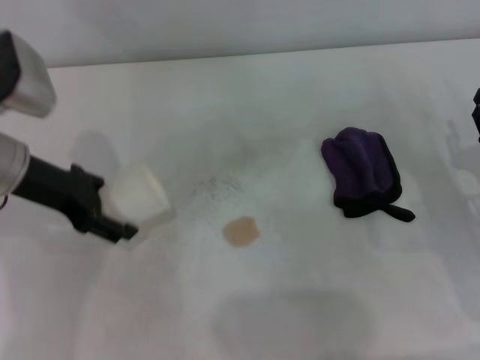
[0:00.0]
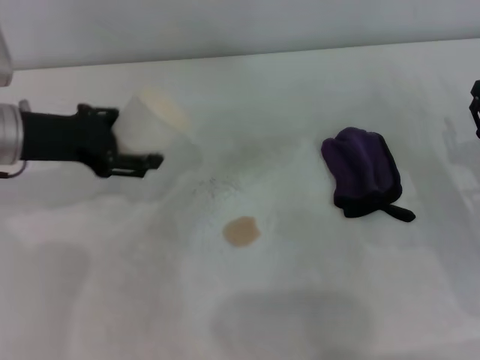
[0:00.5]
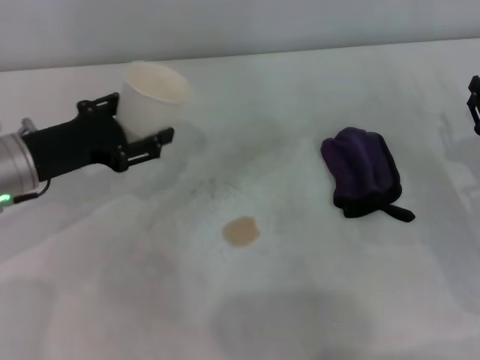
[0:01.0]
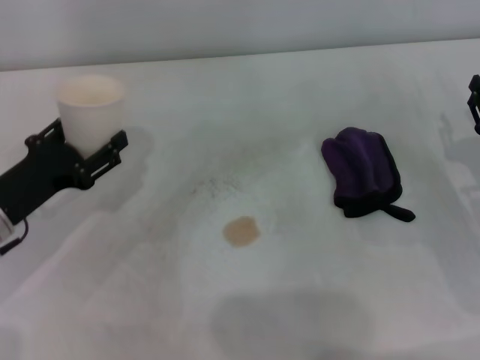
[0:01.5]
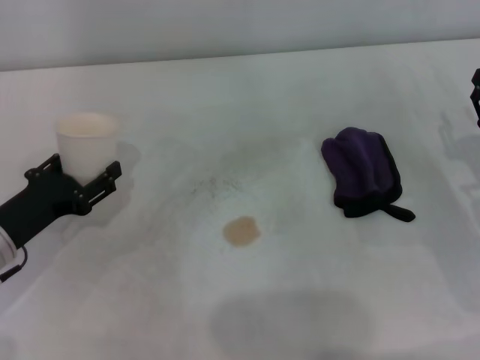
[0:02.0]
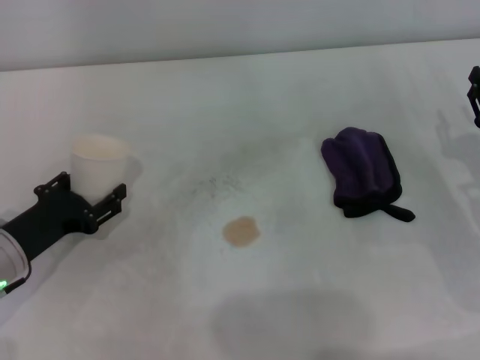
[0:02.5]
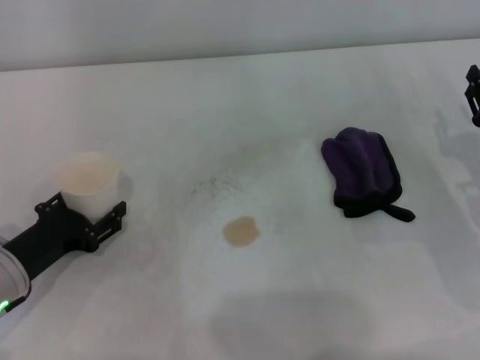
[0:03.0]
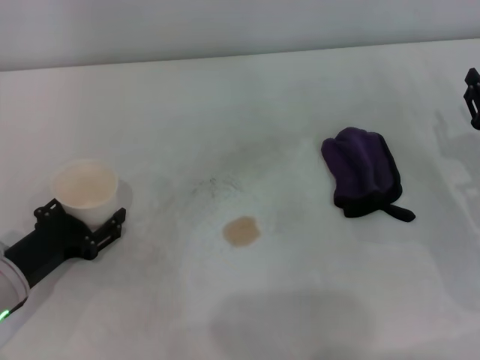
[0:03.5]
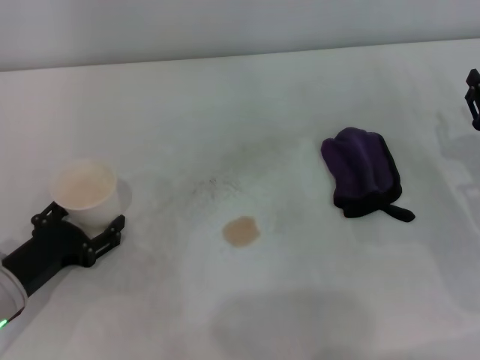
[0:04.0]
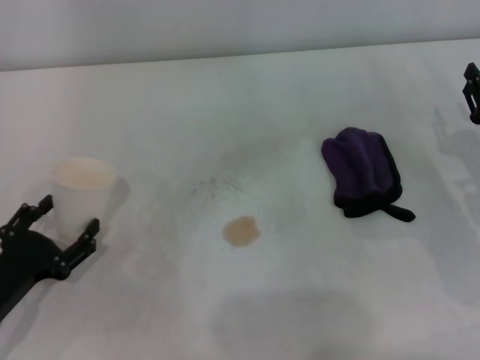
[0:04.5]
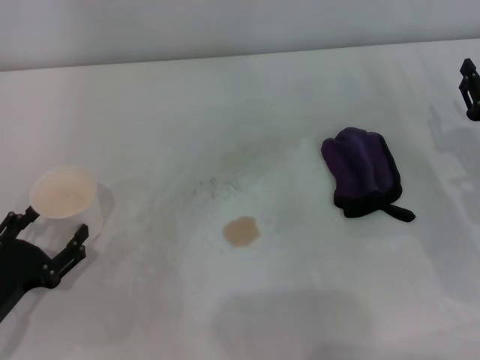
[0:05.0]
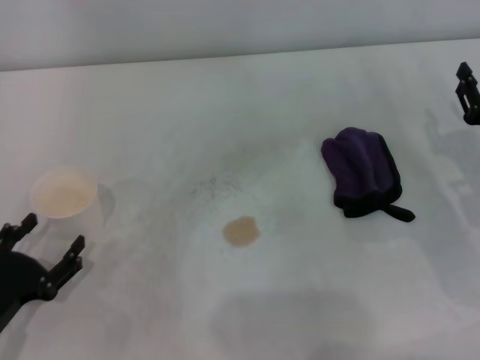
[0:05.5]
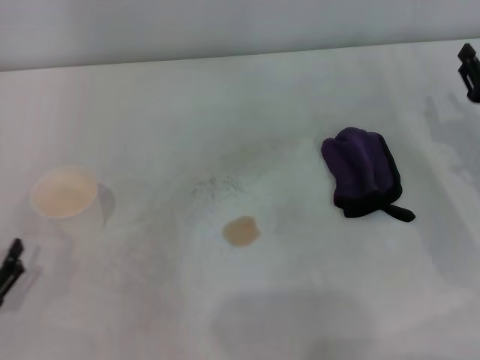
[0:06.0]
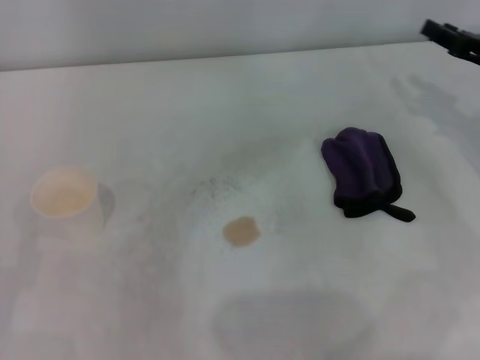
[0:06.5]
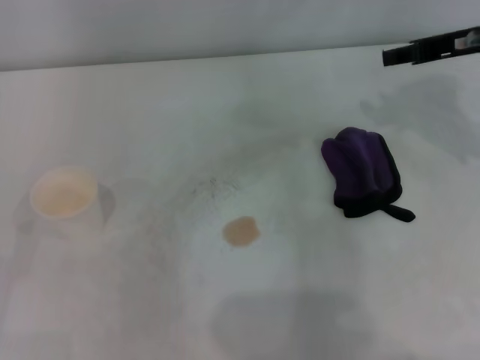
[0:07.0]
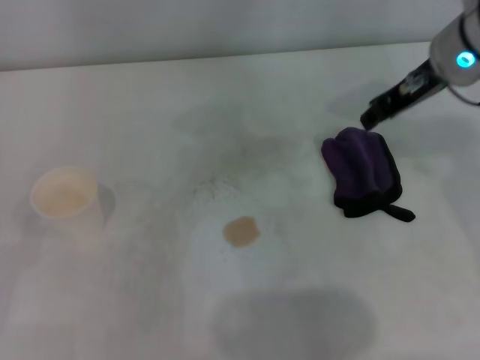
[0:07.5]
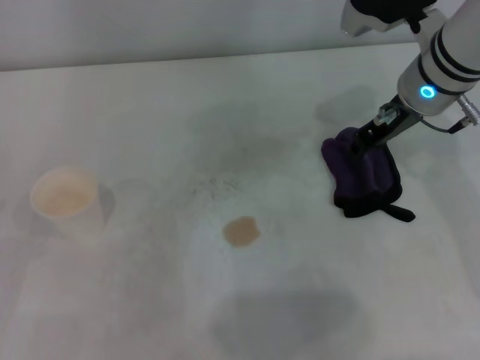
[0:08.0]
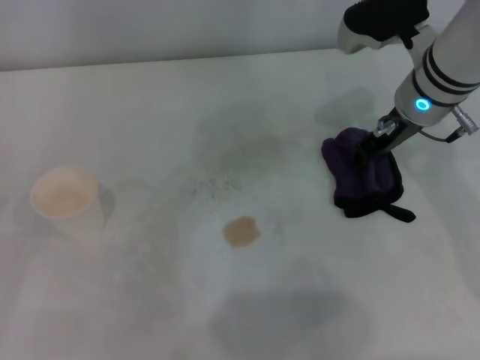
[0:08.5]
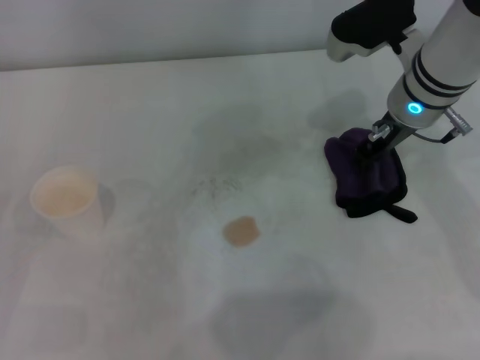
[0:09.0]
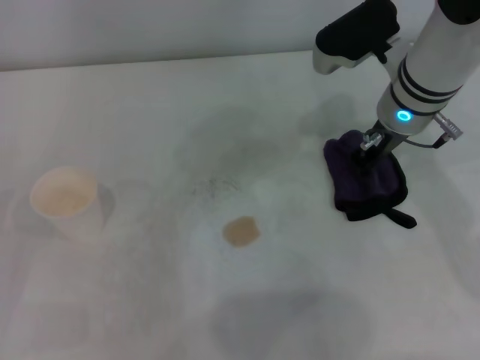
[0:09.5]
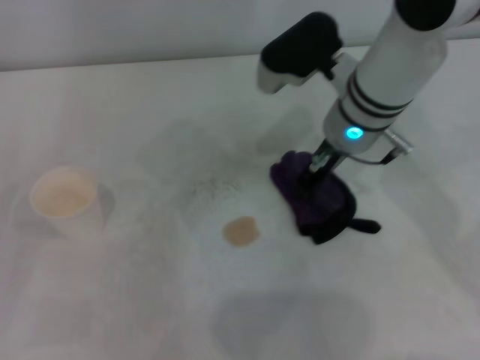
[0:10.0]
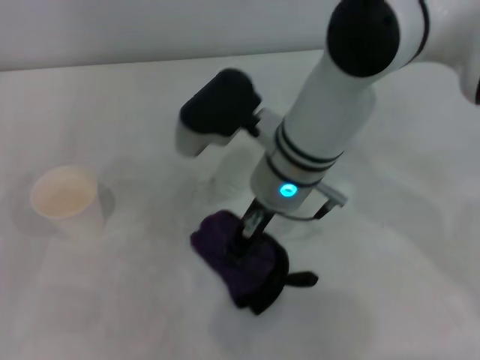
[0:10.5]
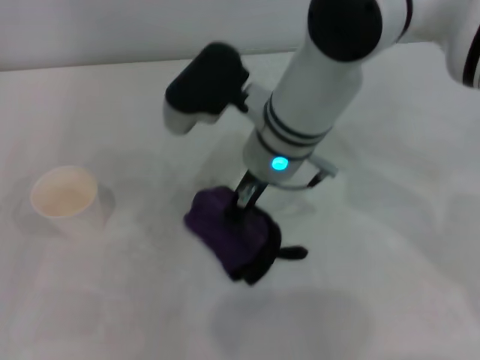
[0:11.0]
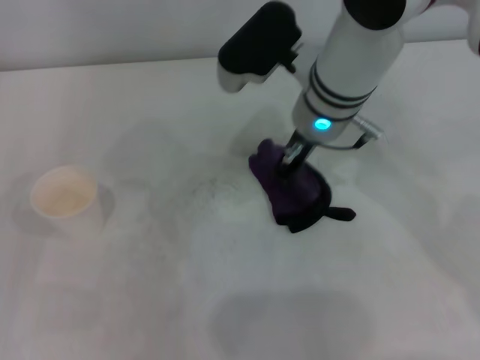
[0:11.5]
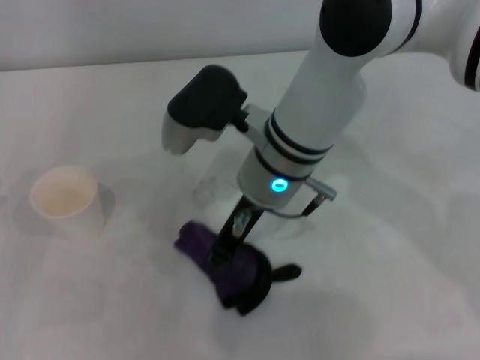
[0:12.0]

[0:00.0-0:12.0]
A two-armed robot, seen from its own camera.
Step, 0:00.0 to 0:04.0: Stand the paper cup upright with the left gripper.
Step, 0:04.5 to 0:09.0: Grasp the rag with the right gripper.
0:00.0 to 0:02.0: The left gripper is displaced downward and backward by approximately 15 cm.
0:02.0 to 0:04.0: The grippers move only a little.
0:04.0 to 0:06.0: The left gripper travels backward and to the left by some 10 cm.
0:06.0 to 0:08.0: The right gripper travels to the left, upward and forward by some 20 cm; the left gripper changes place by some 5 cm.
0:08.0 to 0:10.0: The right gripper travels to the left by roughly 5 cm, and closes up.
0:10.0 to 0:12.0: The right gripper moves left and right over about 10 cm, changing direction 2 times.

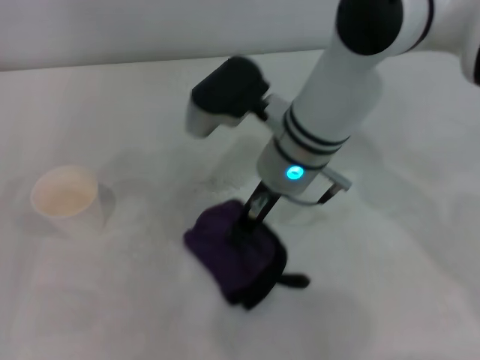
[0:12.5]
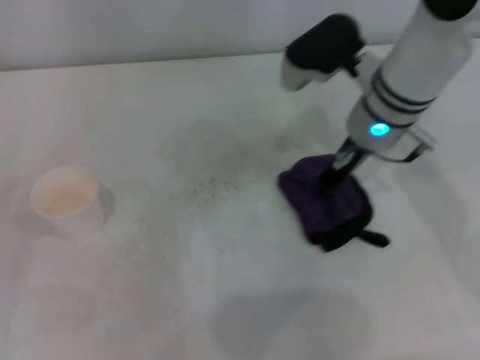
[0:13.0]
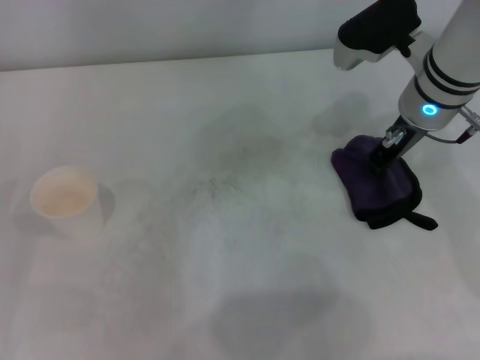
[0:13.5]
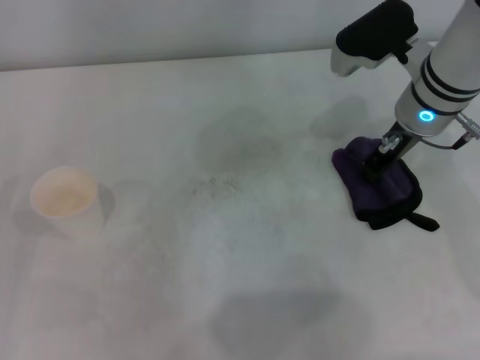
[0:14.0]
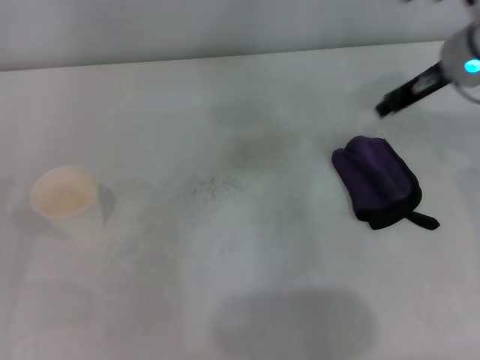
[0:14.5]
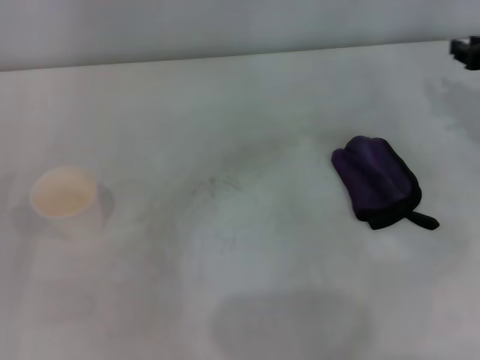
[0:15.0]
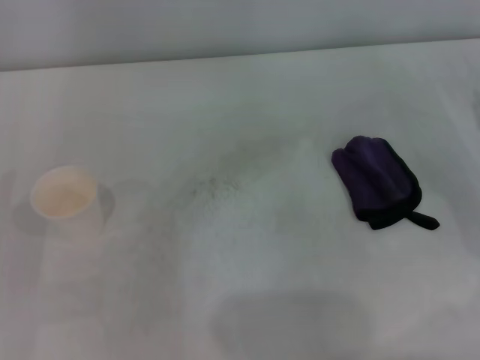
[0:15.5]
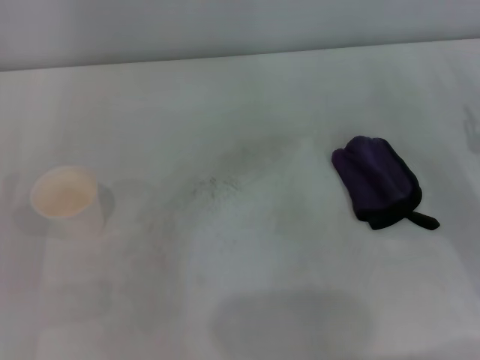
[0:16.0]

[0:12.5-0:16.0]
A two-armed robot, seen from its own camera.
Step, 0:13.5 to 0:14.0: Place the rag on the table with the right gripper.
0:12.5 to 0:14.5: The right gripper goes some 20 cm to the right, and opens.
0:14.5 to 0:16.0: The right gripper travels backward, downward and to the right by approximately 20 cm.
